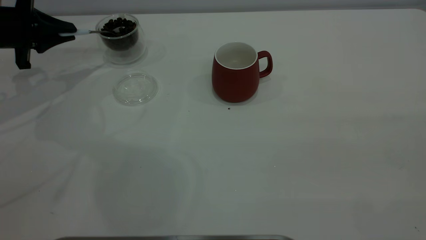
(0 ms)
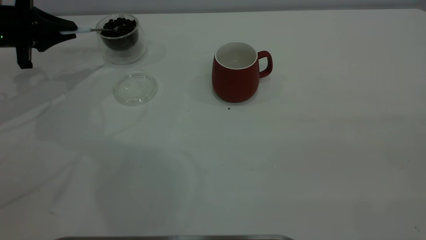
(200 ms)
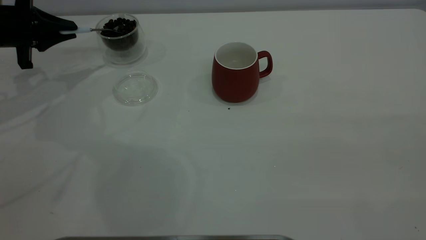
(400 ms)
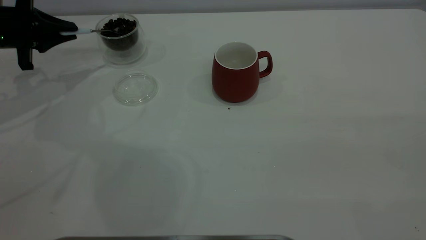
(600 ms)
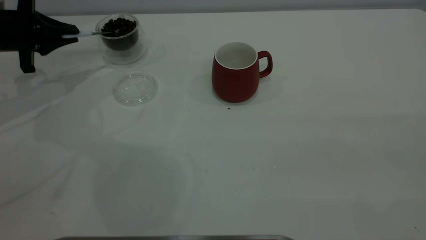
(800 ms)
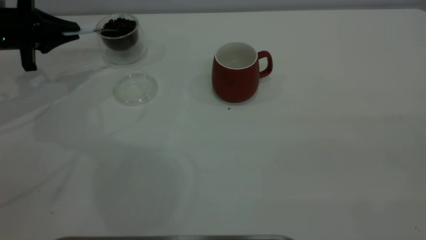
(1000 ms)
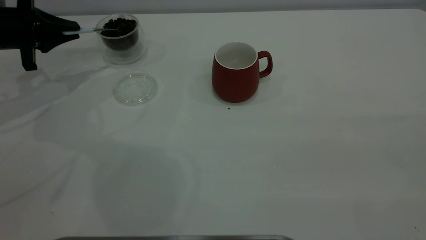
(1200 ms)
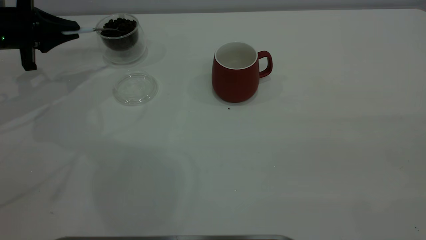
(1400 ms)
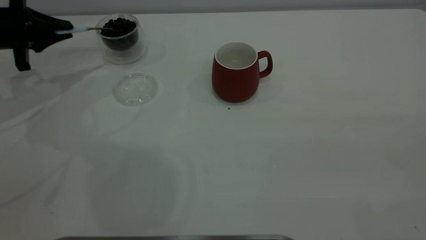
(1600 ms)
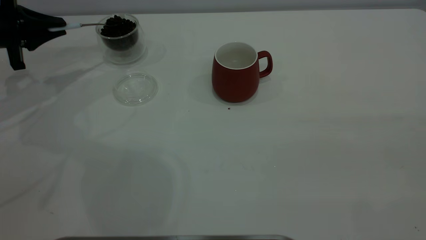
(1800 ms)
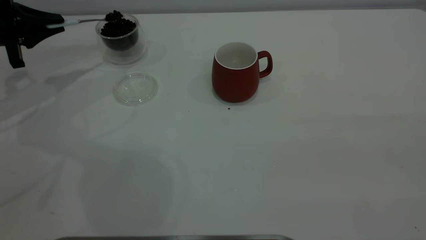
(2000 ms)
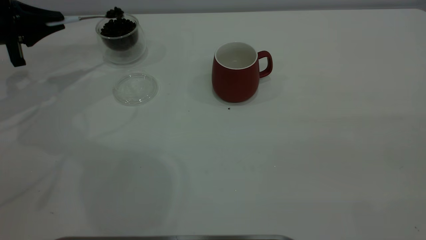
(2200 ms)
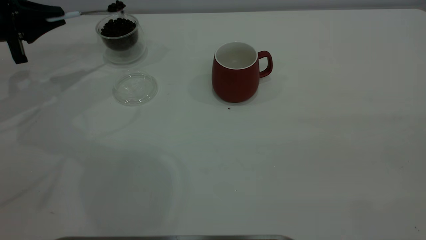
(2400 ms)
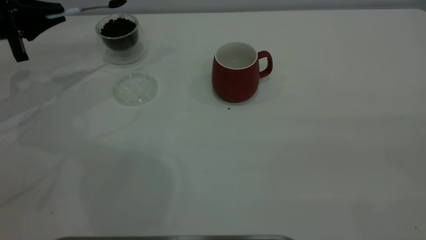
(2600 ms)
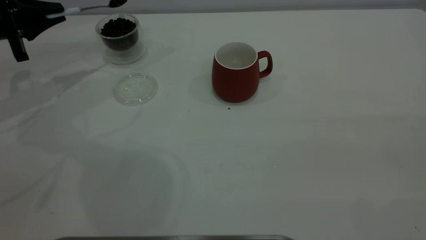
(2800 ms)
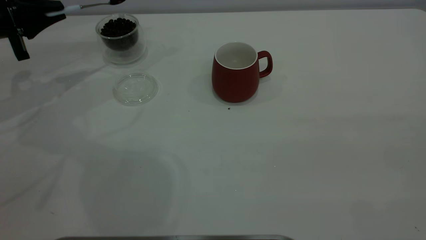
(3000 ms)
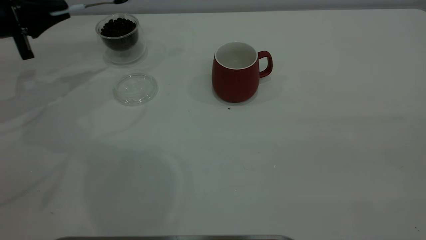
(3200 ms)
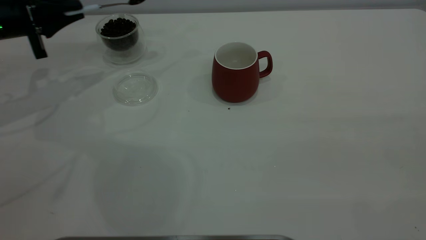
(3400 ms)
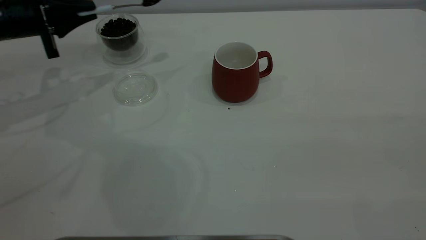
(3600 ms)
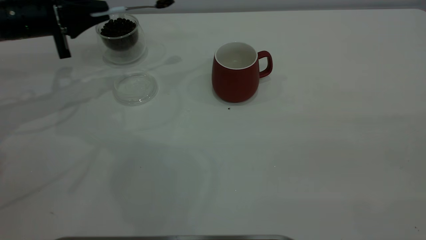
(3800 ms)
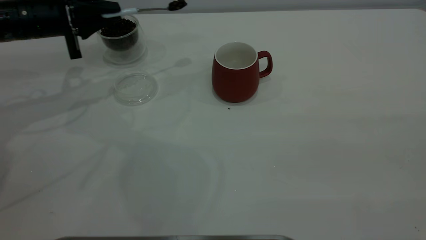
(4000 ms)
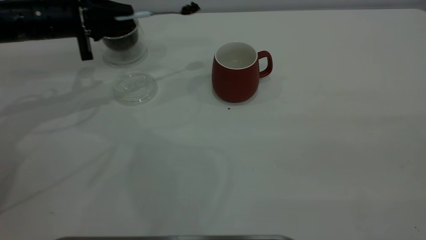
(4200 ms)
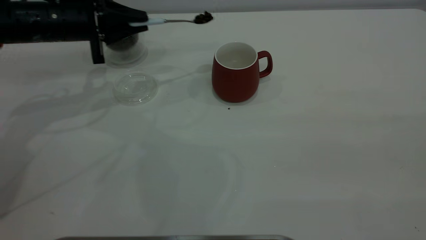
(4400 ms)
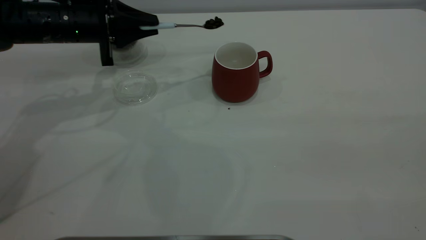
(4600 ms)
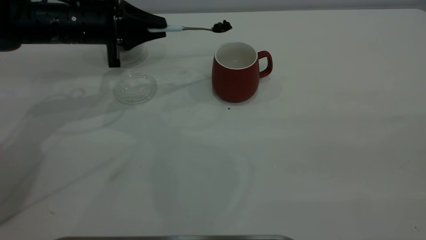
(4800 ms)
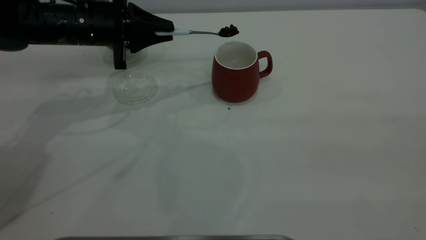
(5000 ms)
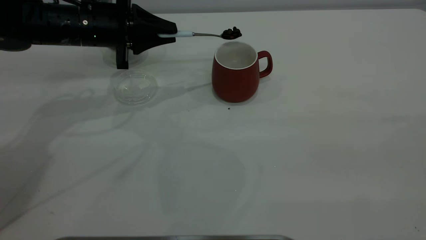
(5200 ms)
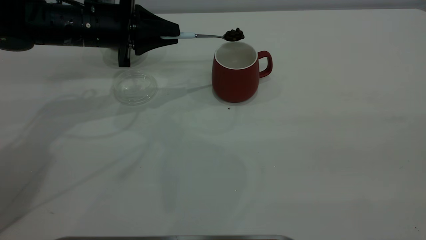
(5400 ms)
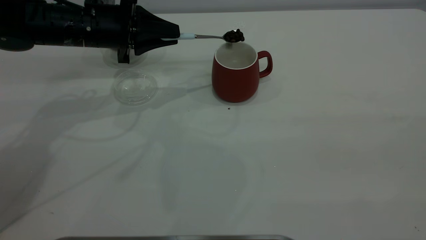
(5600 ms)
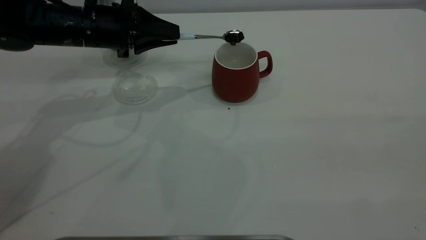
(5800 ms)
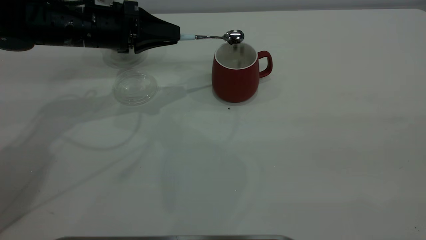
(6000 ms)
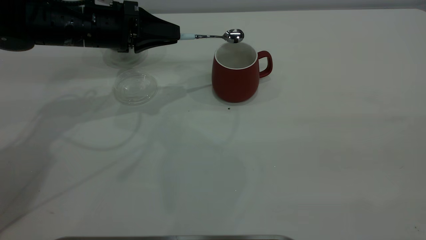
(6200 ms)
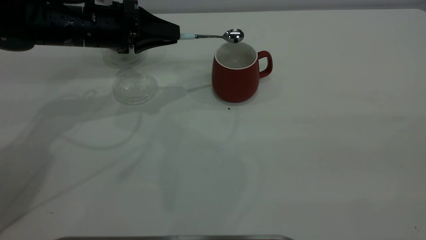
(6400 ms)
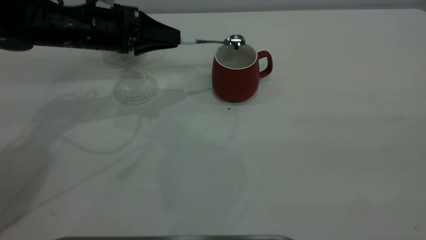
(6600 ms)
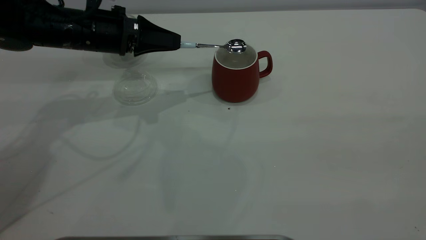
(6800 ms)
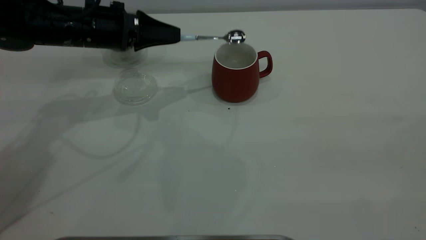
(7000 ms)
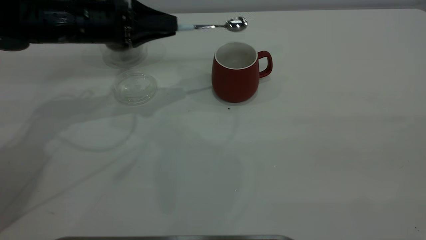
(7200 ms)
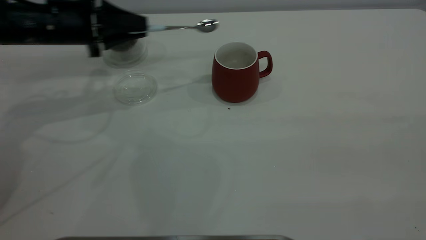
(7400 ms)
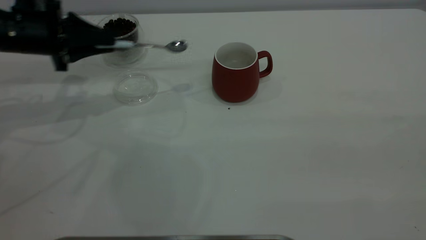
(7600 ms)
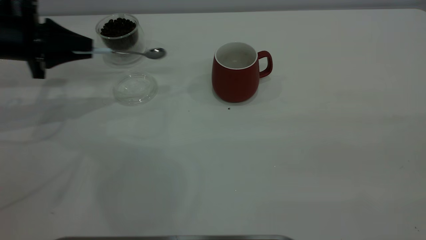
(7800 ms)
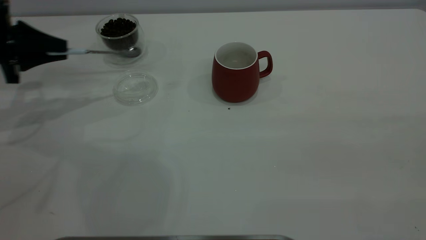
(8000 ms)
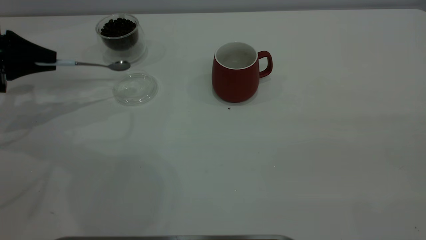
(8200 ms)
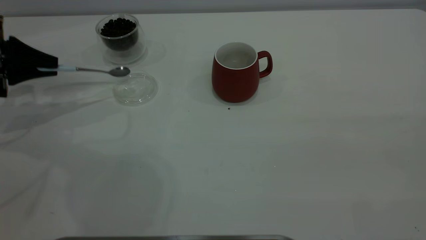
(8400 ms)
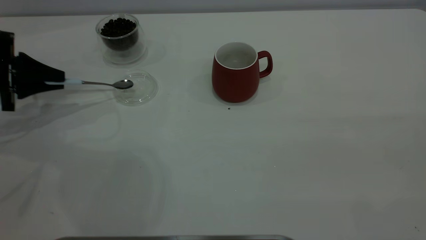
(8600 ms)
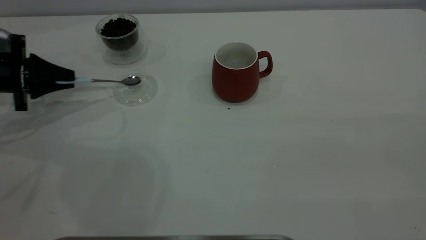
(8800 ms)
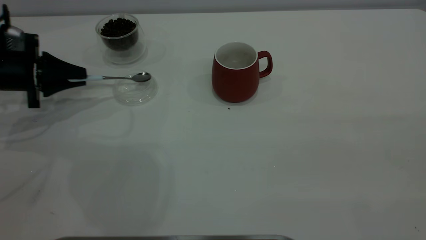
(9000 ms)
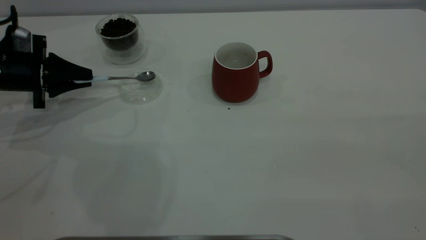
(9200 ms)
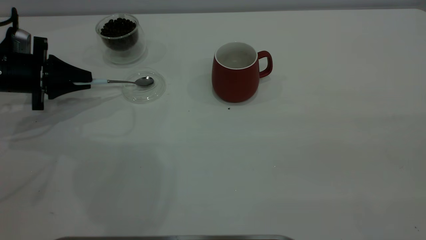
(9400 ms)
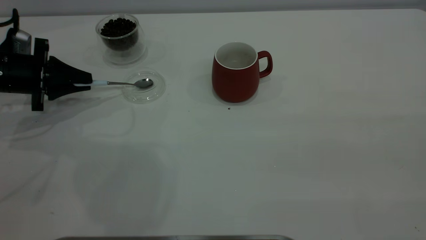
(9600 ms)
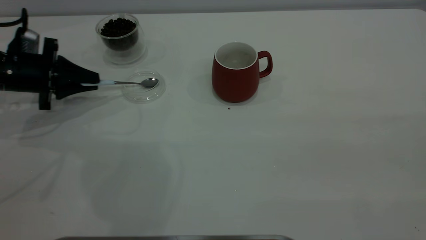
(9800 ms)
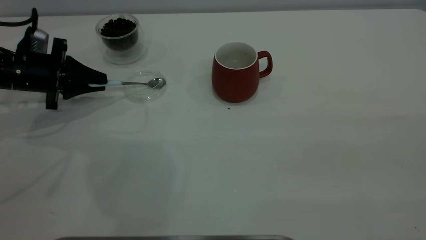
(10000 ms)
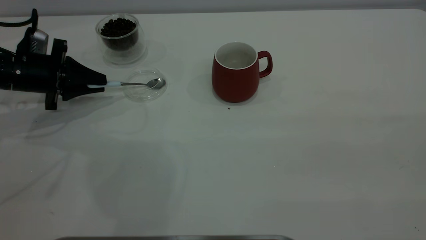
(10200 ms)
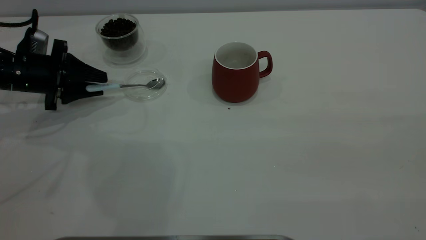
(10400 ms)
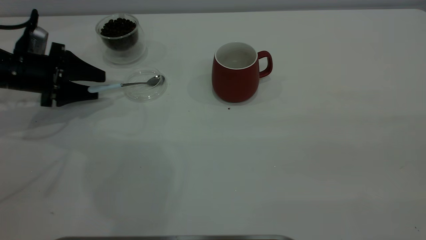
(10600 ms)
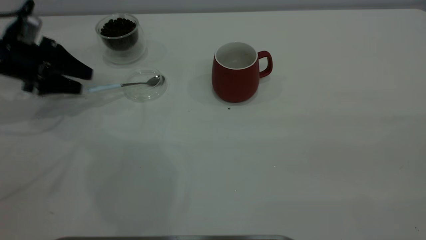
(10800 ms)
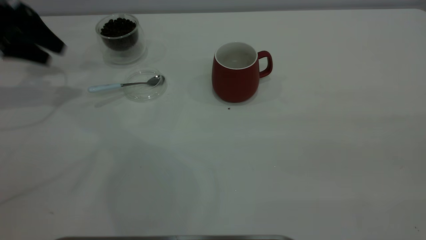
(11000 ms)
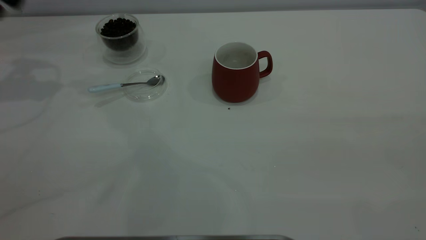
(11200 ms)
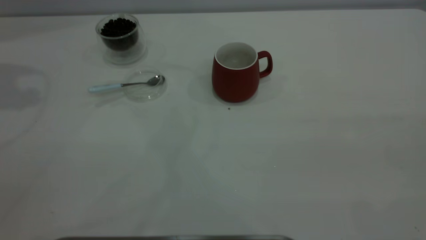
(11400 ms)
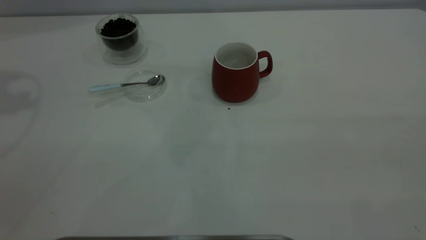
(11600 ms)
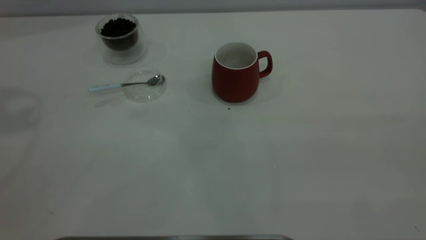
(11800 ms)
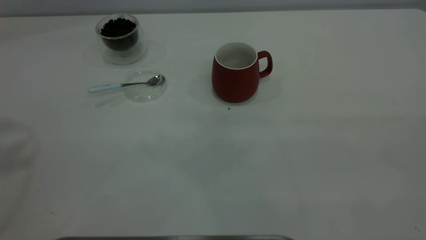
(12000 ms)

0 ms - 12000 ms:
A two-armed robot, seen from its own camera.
Task of the whole recording: the right gripper place the red cup in the center of the table, the left gripper take the blue spoon from the cup lid and scoop out the coffee beans from the coffee cup and put them into the red cup, the left gripper put the spoon back into the cup lid.
Step, 0 ms - 7000 ms: Scoop a spoonful of beans into the cup.
Step, 7400 ms - 10800 ms: Place the spoon back in its original place.
1600 ms - 3000 ms: The grippers stay close to where they were, moving slightly.
3000 ms - 4400 ms: The left gripper heads to the right, covering approximately 15 cm.
6000 ms - 7600 ms: The left gripper goes some 10 cm to the left.
7600 ms - 9000 ms: The left gripper moves downward and to the left, about 10 cm.
9000 ms - 10400 ms: The left gripper opens its fingers.
10400 ms - 12000 ms: The left gripper travels upward by roughly 40 cm.

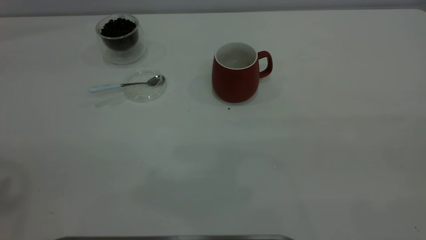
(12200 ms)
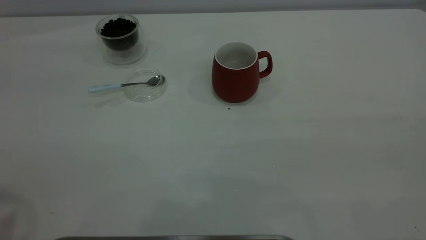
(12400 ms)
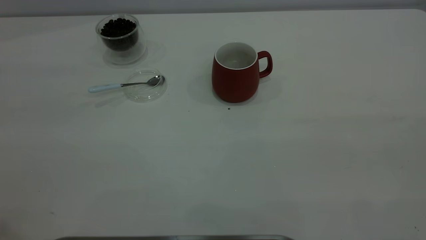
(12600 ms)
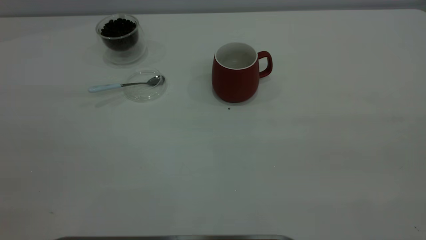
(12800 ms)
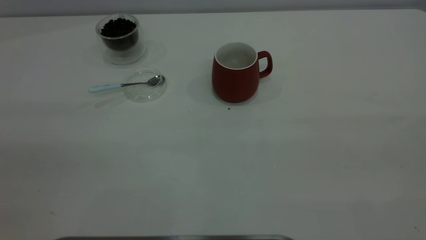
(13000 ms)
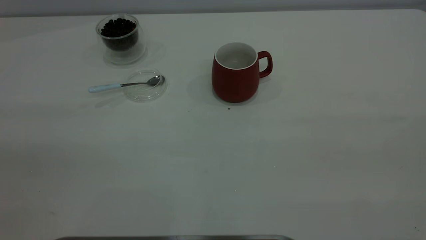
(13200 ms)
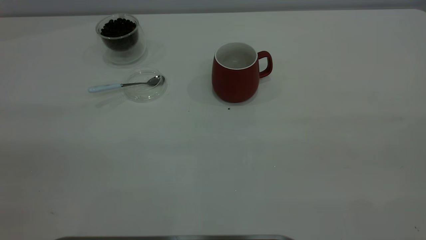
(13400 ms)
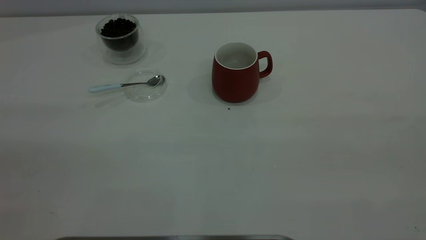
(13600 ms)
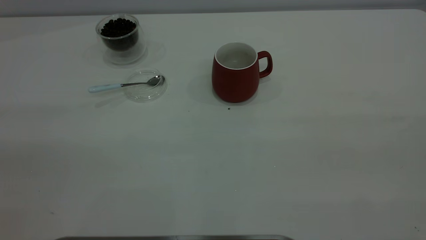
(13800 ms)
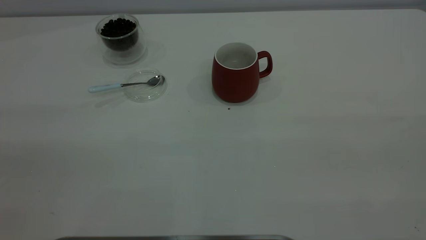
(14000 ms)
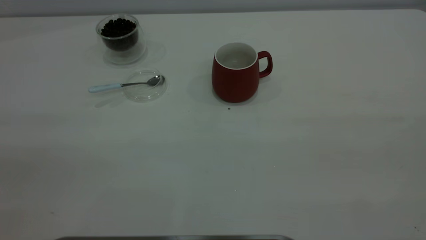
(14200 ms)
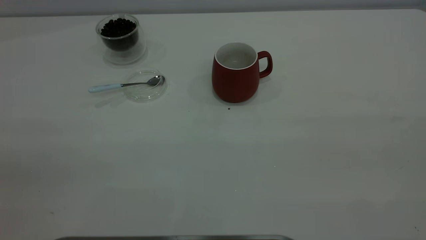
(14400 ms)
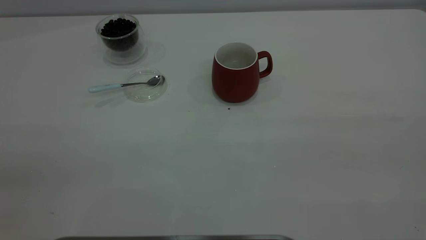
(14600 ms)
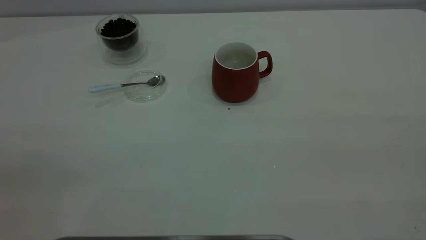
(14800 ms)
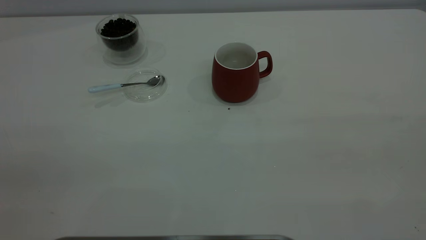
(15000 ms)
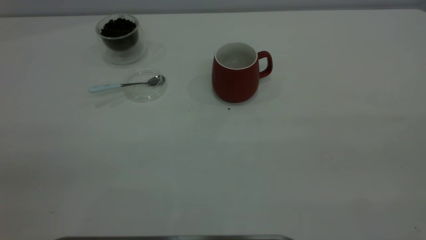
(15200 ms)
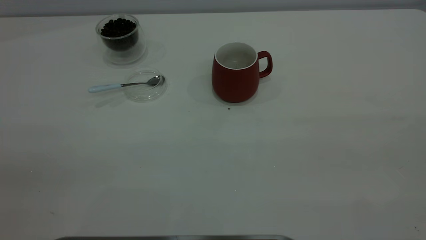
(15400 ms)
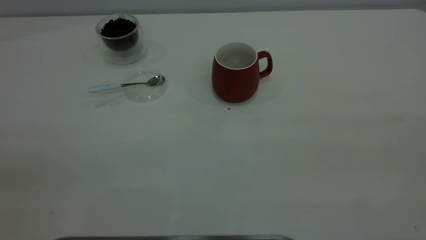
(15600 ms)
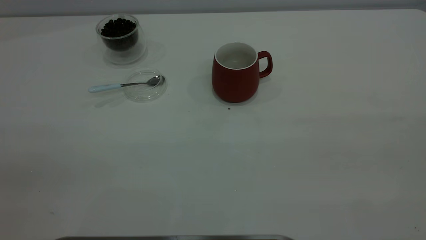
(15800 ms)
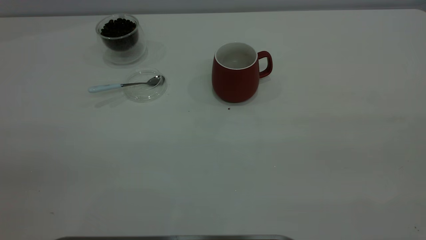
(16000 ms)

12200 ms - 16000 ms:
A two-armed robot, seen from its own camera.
Task of the whole recording: the right gripper place the red cup in the center of the table, the left gripper take the blue spoon from the cup lid and scoop out the coffee beans from the coffee cup and put them into the red cup, the left gripper put the spoon back into the cup lid.
14800 ms - 16000 ms: The two grippers keep their place.
